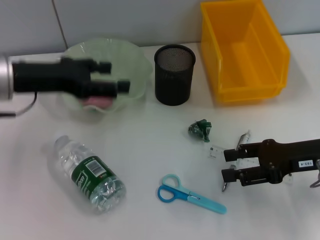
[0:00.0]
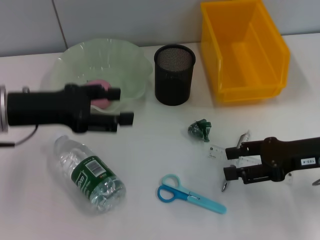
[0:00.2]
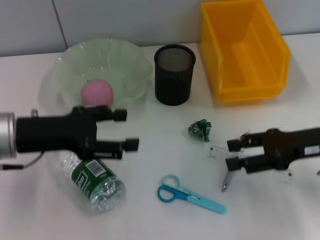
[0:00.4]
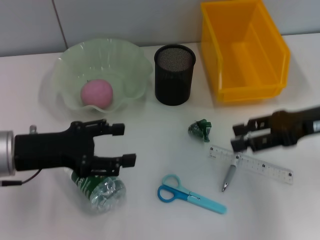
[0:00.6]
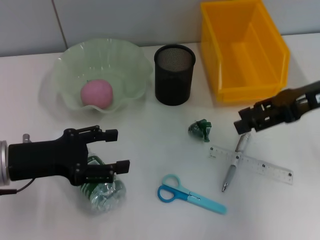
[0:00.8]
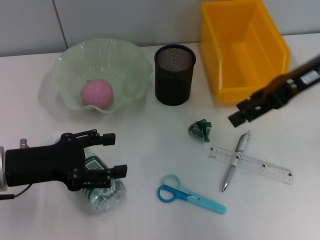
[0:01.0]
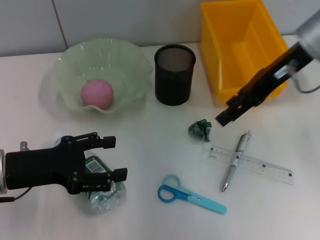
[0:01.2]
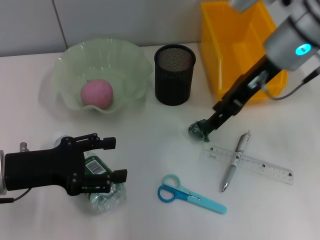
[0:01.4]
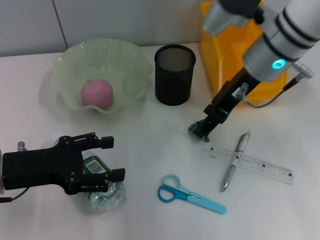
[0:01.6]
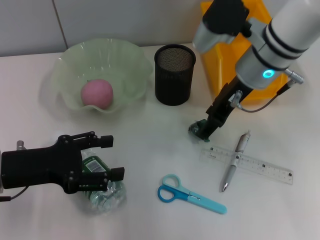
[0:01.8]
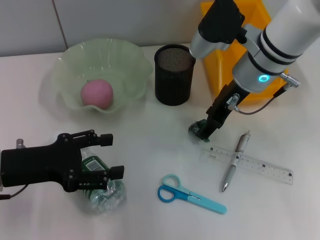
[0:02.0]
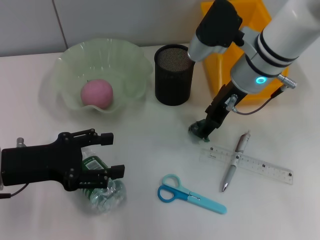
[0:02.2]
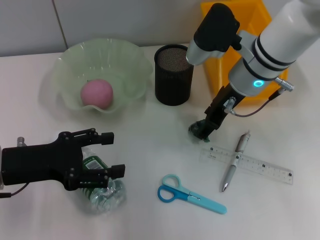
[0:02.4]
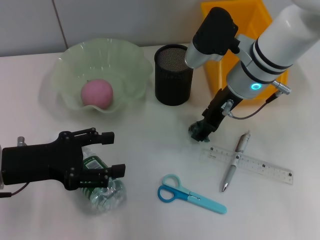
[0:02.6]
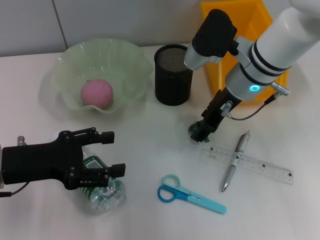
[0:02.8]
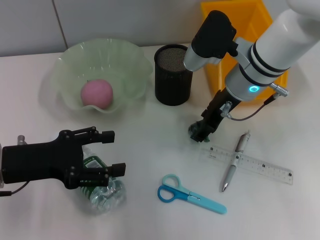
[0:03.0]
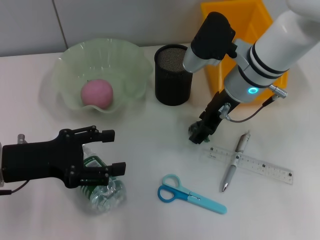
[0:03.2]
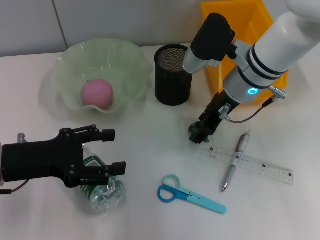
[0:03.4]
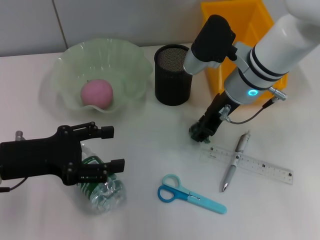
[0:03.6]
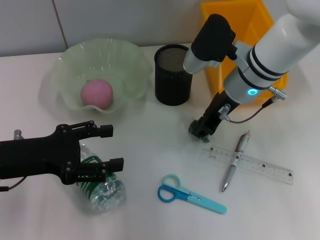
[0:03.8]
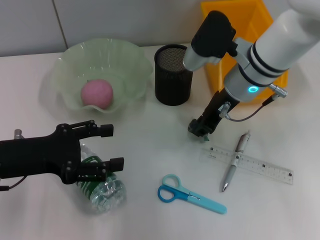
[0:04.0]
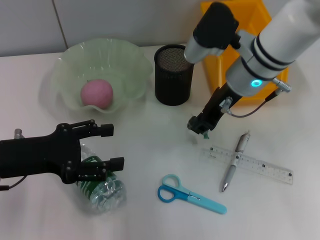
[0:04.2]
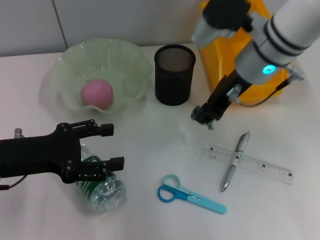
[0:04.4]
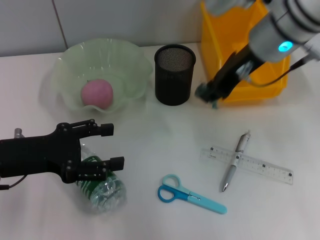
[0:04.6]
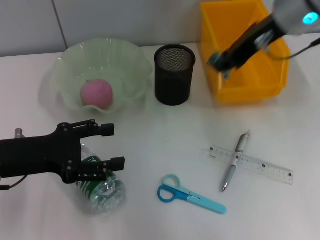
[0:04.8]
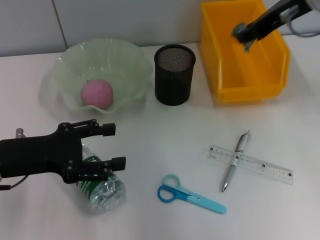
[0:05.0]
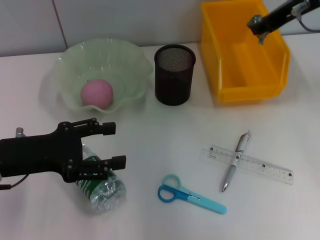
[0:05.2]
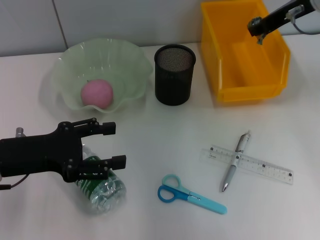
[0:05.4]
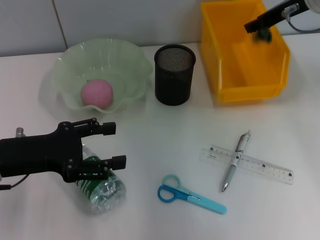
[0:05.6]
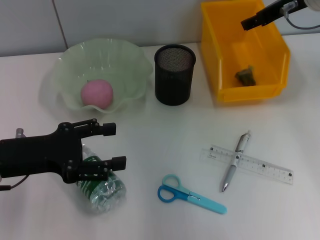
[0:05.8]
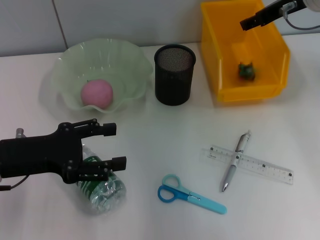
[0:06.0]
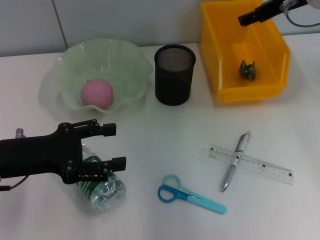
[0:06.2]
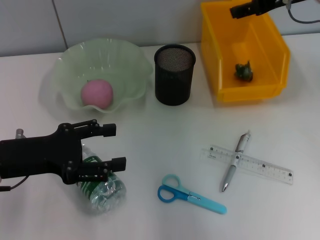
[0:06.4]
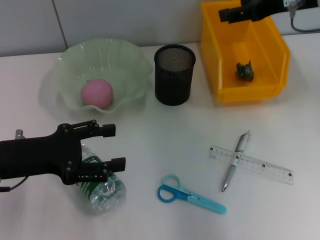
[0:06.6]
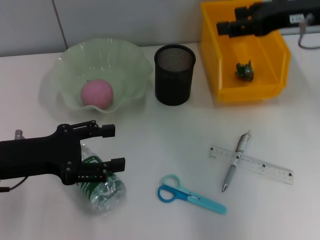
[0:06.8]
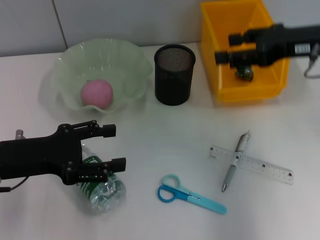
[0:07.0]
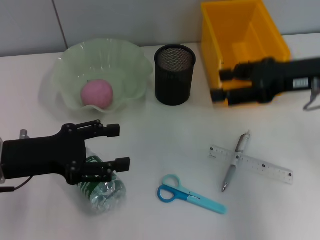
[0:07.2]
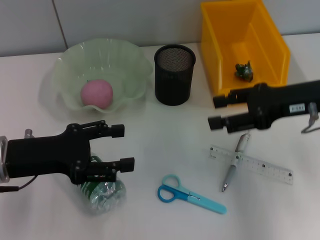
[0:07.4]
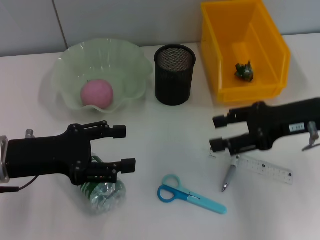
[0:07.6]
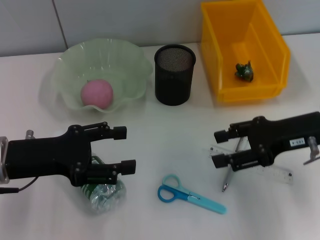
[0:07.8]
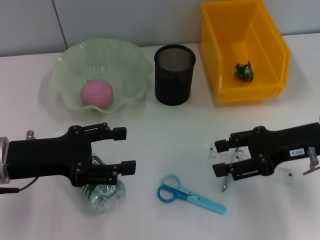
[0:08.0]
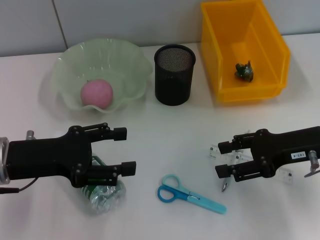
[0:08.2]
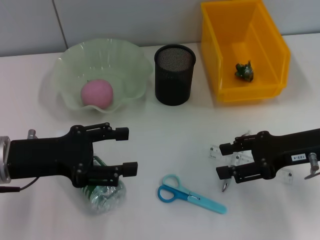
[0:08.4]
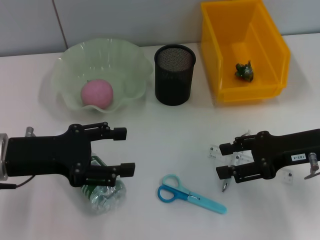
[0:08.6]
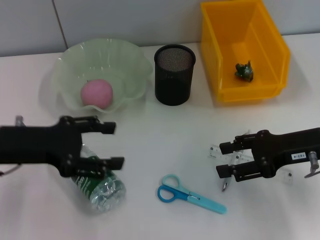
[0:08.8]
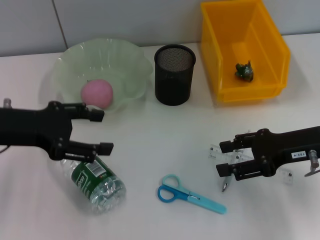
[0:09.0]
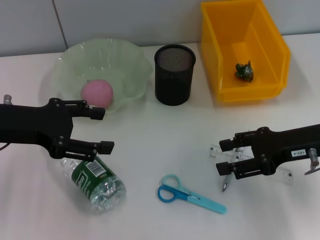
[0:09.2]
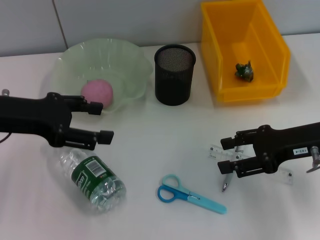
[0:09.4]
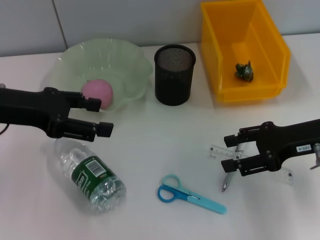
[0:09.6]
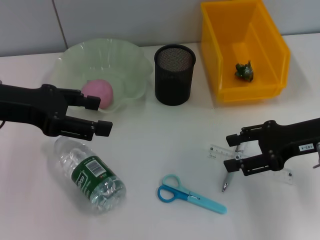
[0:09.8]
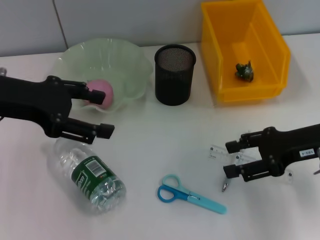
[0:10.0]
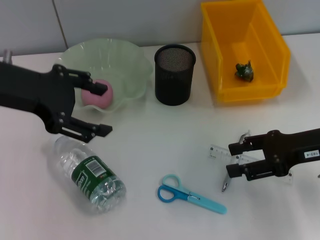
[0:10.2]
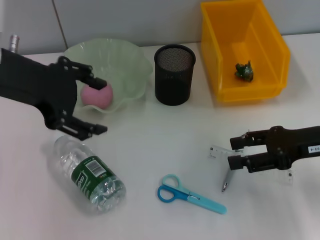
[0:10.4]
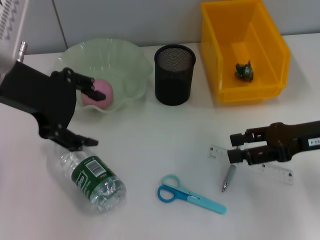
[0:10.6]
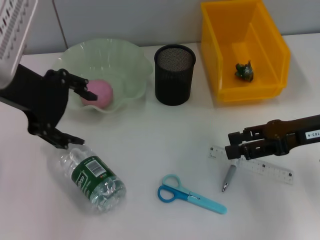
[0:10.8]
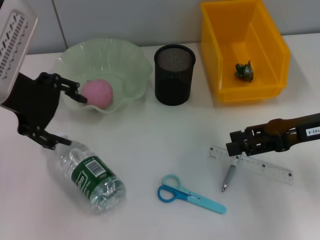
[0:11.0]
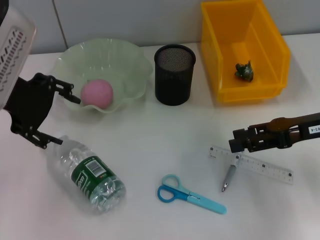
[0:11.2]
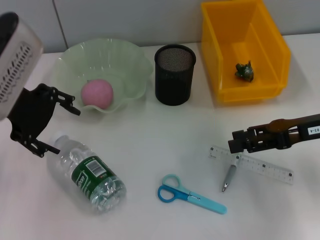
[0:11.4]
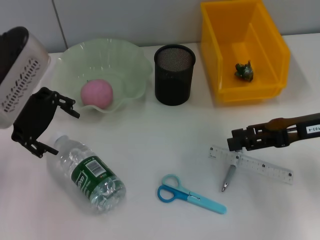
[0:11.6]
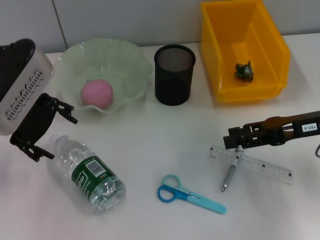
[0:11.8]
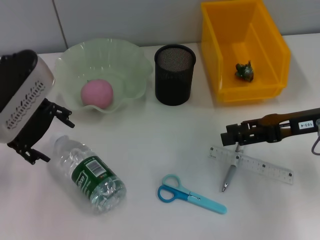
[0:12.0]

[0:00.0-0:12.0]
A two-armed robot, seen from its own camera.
Step, 0:00.0 to 0:03.8: Grab the plastic with the right hand.
Step, 0:04.0 to 0:06.8: Place the plastic into the trash can with the right hand.
0:00.0 to 0:01.6: The left gripper moves downward and backward, about 10 cm; the right gripper travels to the left, forward and upward by about 20 cm.
0:01.6 to 0:03.0: The right gripper goes some 5 cm downward.
0:03.0 to 0:04.4: The right gripper travels upward by about 5 cm, and closes its fingers.
0:04.4 to 0:06.0: The right gripper moves to the right and forward, approximately 10 cm, and opens up.
0:06.0 to 0:07.6: The right gripper moves backward and downward, some 15 cm.
0:07.6 to 0:09.0: The left gripper moves some 5 cm.
0:09.0 to 0:10.4: The left gripper shifts about 10 cm upward.
0:10.4 to 0:12.0: The left gripper is displaced downward by about 5 cm.

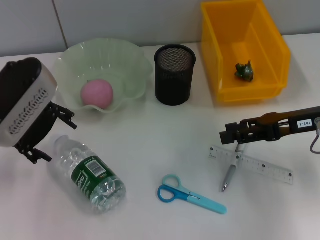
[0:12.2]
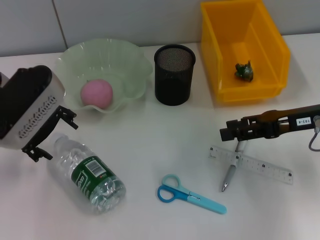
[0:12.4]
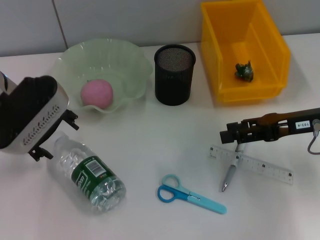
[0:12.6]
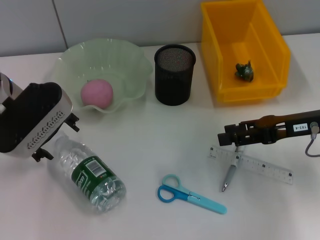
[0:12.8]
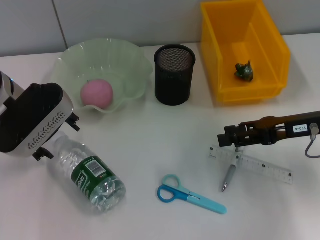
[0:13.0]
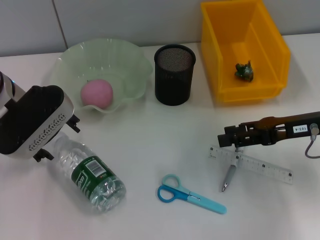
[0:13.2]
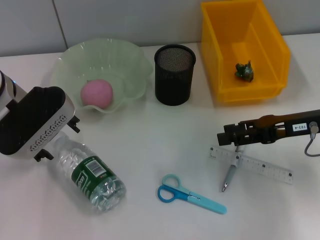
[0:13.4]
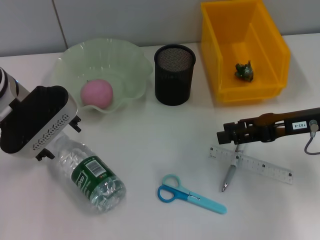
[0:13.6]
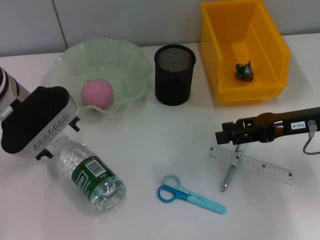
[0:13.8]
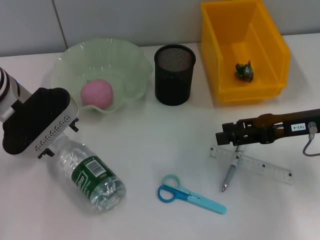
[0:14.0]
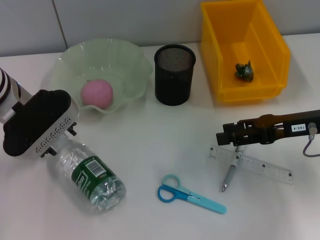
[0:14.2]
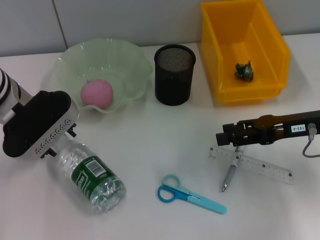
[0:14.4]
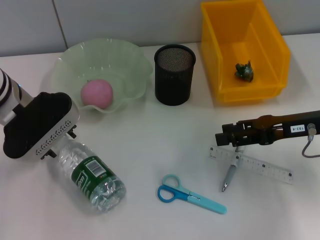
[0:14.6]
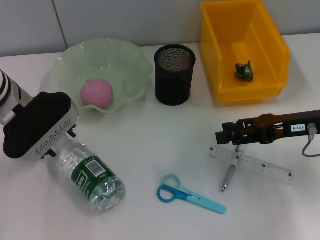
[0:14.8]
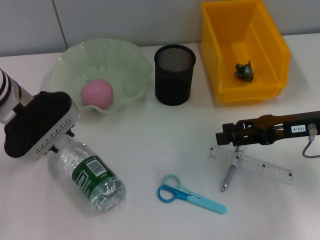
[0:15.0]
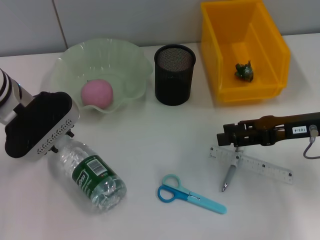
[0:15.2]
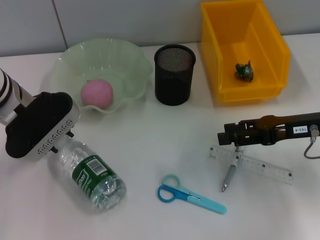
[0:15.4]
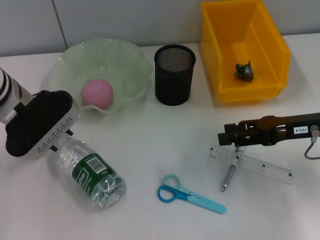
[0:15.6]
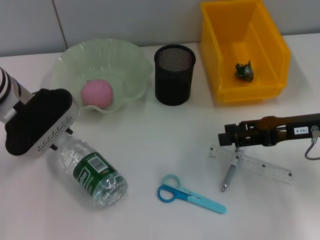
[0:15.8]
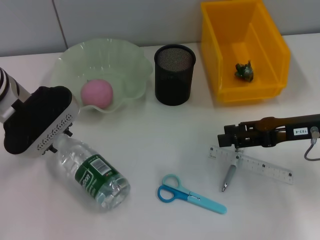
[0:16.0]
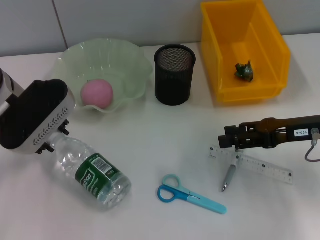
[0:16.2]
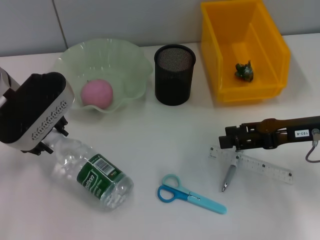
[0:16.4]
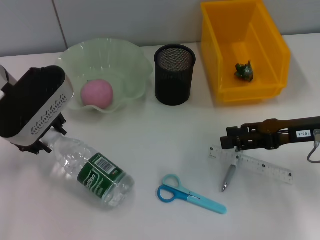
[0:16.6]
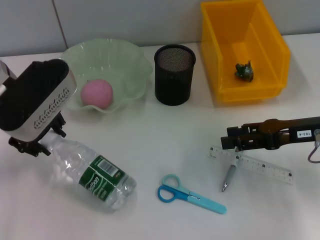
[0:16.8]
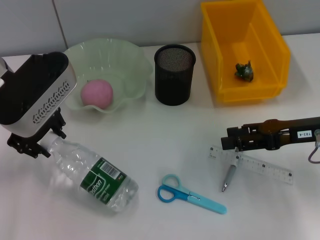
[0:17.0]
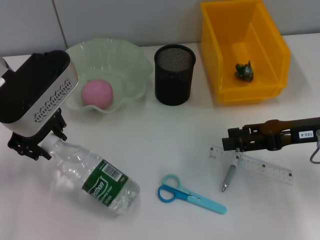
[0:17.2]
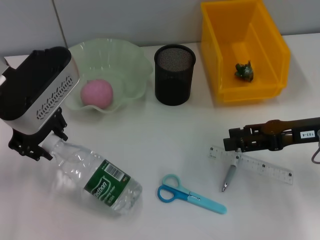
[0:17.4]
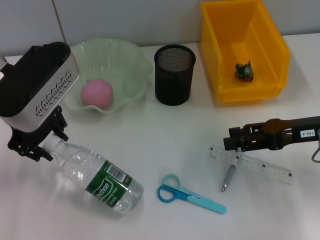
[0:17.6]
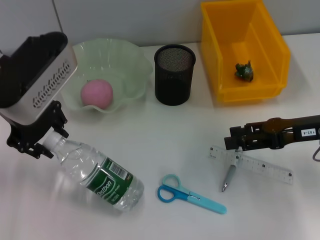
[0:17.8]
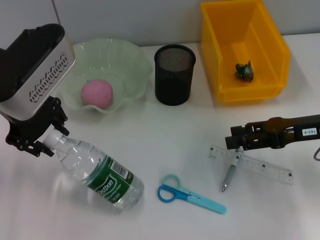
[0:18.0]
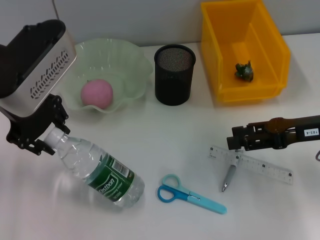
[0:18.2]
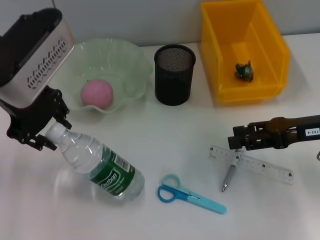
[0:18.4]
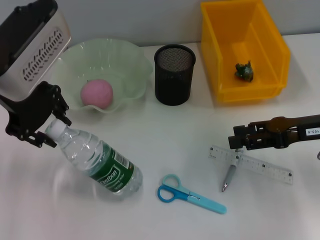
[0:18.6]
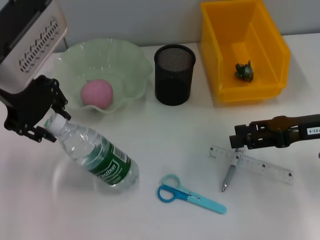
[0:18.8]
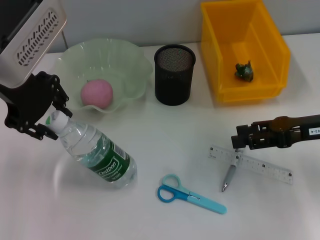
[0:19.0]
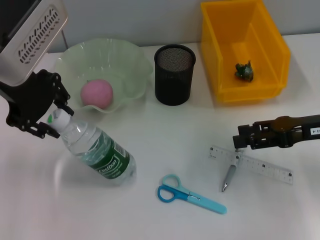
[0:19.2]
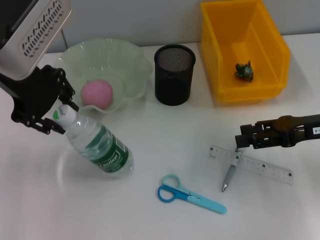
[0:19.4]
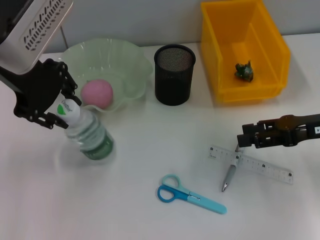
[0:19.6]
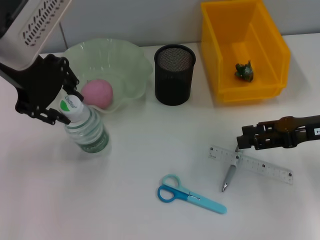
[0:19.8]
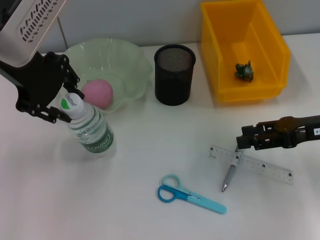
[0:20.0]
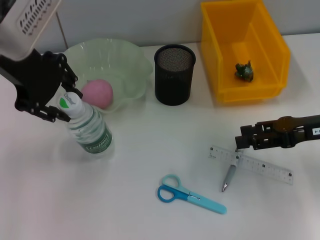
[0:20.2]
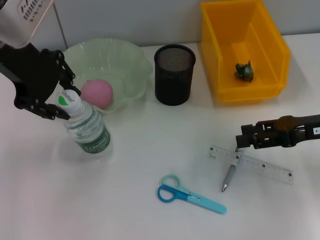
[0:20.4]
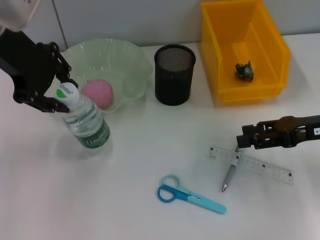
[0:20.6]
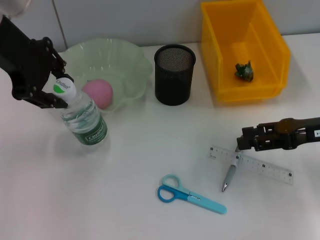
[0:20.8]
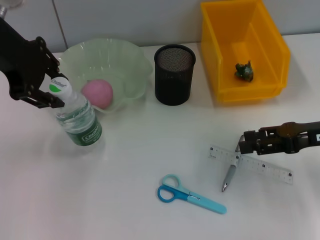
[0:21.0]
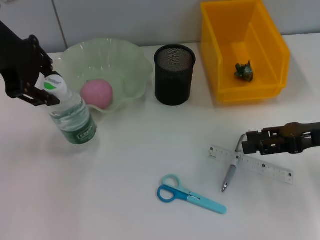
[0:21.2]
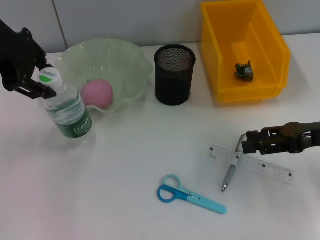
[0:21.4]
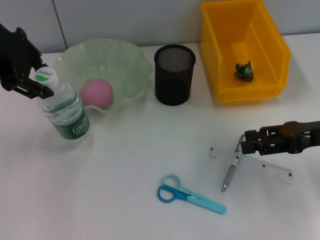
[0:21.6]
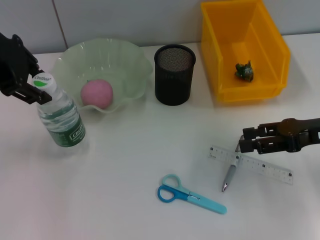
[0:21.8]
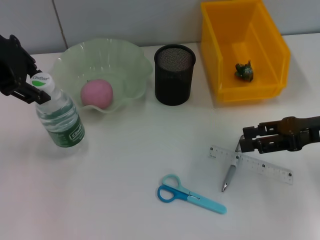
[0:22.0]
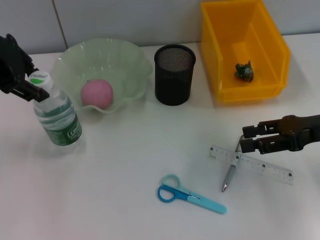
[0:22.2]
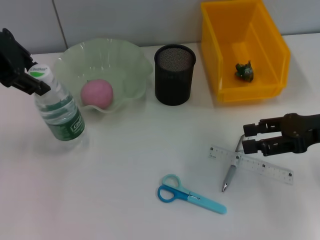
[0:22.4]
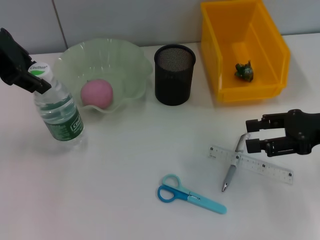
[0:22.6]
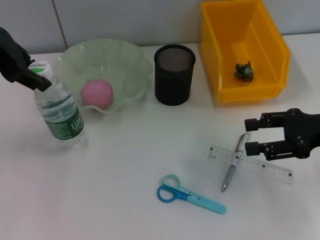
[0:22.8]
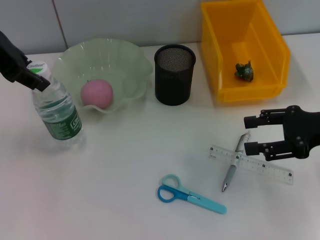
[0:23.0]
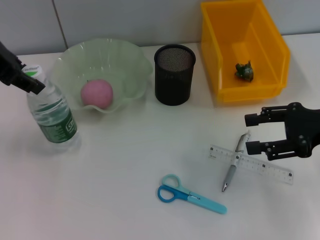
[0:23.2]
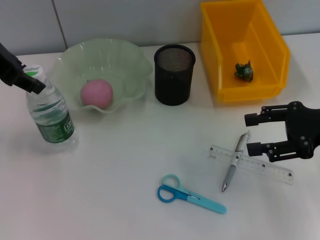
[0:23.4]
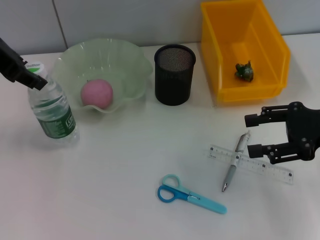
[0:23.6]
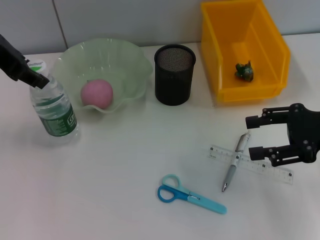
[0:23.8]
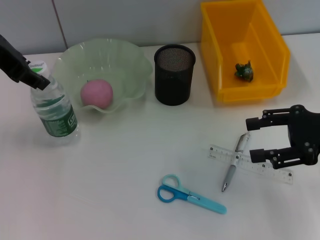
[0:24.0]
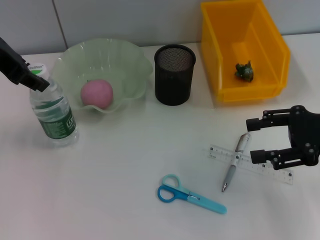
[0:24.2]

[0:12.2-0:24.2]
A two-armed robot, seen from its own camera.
Step, 0:12.2 to 0:15.2: Grab the water bottle with the left hand.
0:12.2 to 0:13.8: There are only small adjustments of the grippers.
0:13.8 to 0:15.2: The left gripper closes its fingers.
0:15.2 to 0:16.6: The grippers make only small movements.
0:16.6 to 0:18.2: The left gripper heads upward, covering roughly 5 cm.
0:18.2 to 0:19.8: The grippers stay close to where they were, moving slightly.
0:22.6 to 0:24.2: There are only small adjustments of the grippers.
